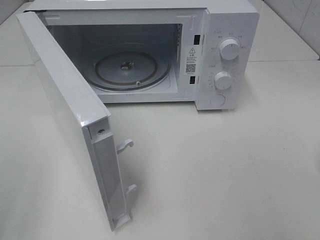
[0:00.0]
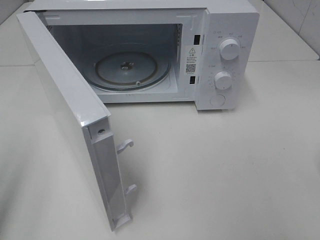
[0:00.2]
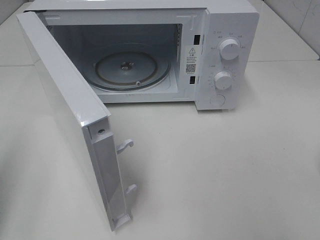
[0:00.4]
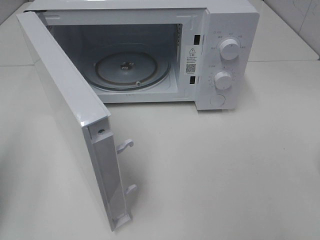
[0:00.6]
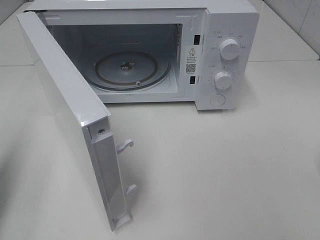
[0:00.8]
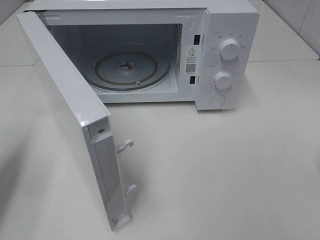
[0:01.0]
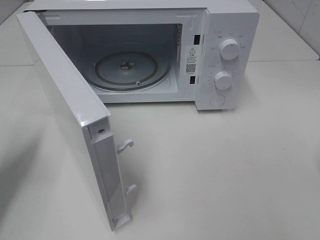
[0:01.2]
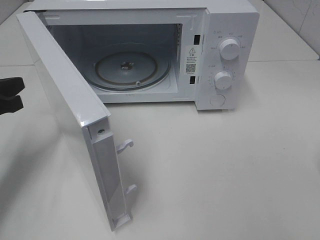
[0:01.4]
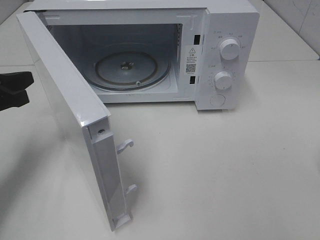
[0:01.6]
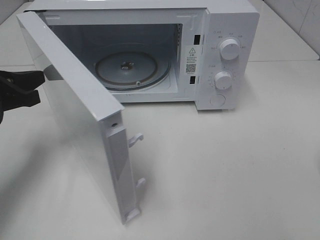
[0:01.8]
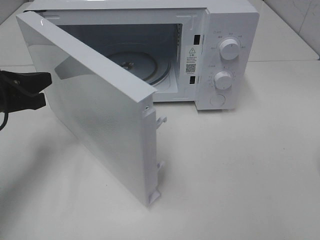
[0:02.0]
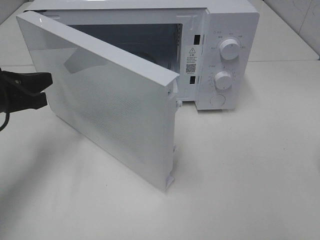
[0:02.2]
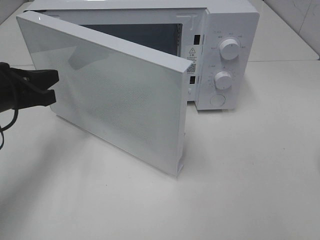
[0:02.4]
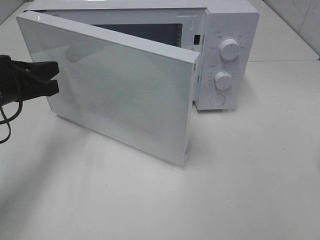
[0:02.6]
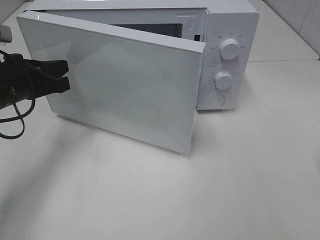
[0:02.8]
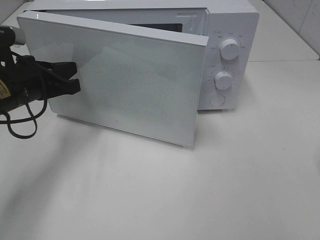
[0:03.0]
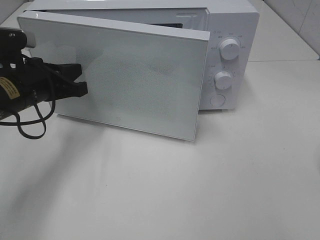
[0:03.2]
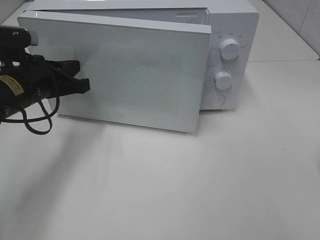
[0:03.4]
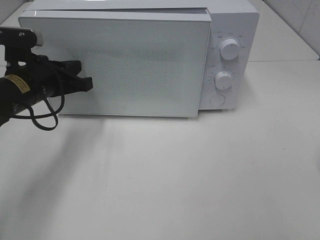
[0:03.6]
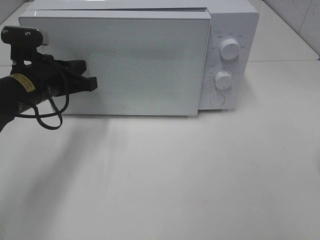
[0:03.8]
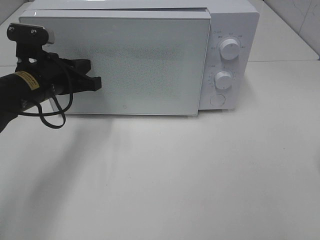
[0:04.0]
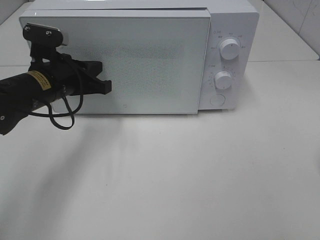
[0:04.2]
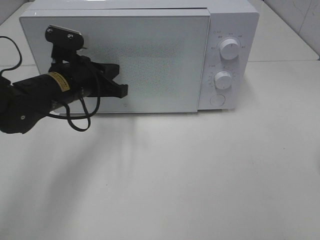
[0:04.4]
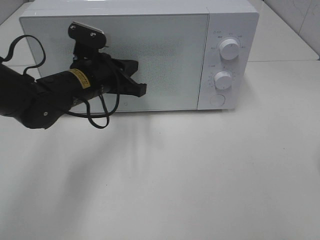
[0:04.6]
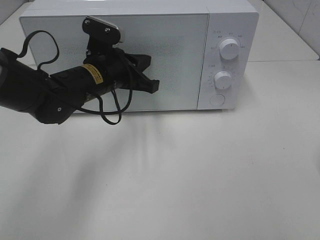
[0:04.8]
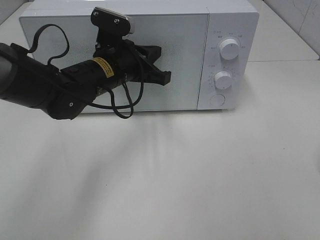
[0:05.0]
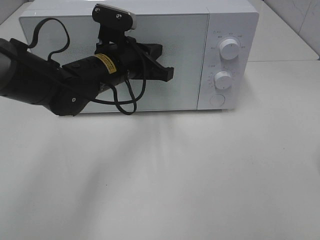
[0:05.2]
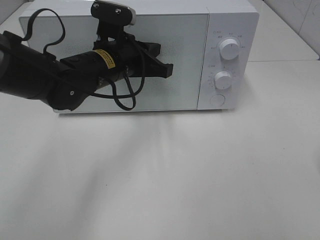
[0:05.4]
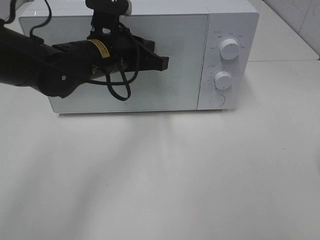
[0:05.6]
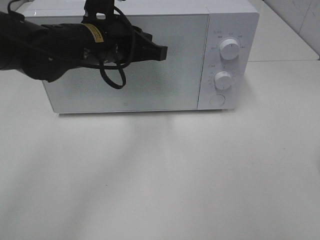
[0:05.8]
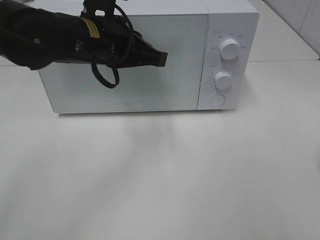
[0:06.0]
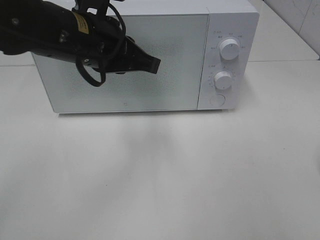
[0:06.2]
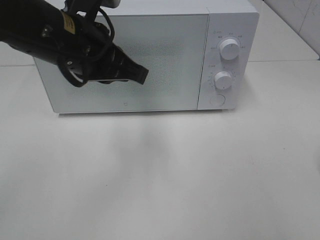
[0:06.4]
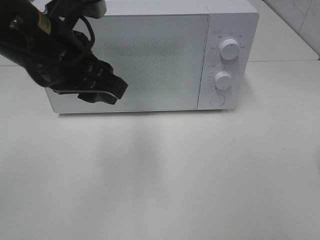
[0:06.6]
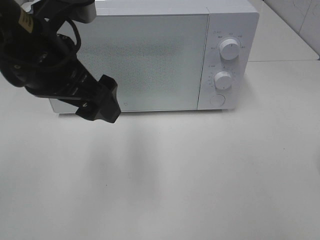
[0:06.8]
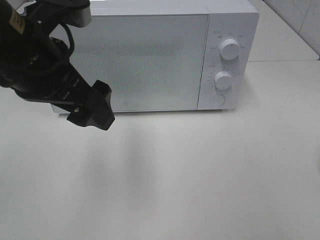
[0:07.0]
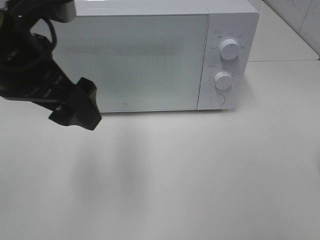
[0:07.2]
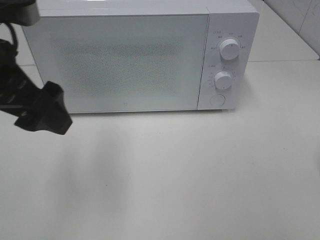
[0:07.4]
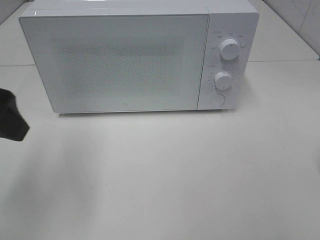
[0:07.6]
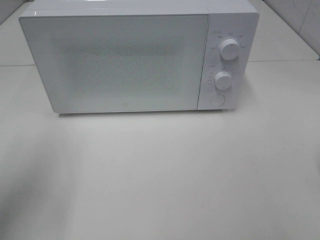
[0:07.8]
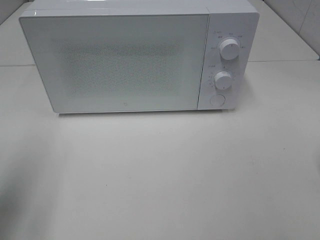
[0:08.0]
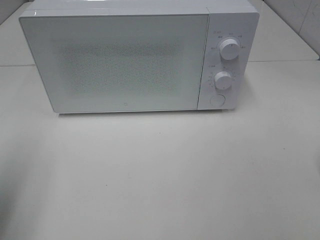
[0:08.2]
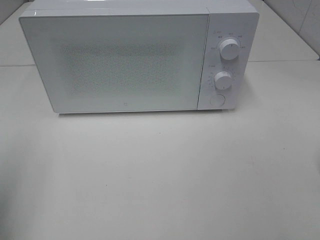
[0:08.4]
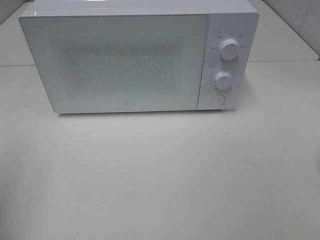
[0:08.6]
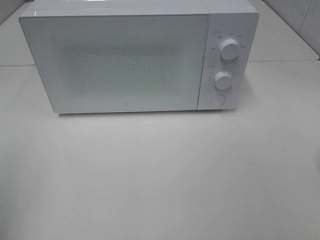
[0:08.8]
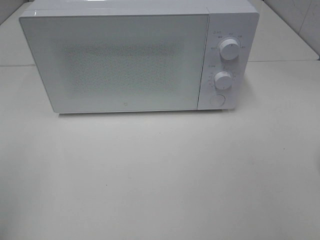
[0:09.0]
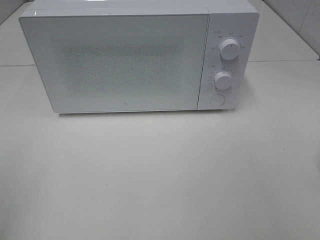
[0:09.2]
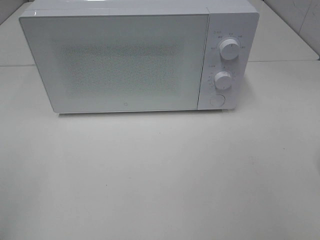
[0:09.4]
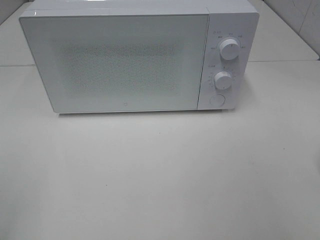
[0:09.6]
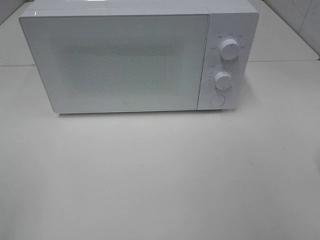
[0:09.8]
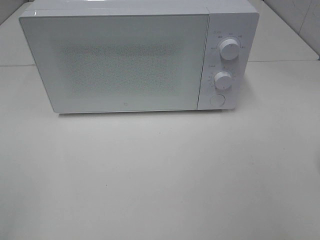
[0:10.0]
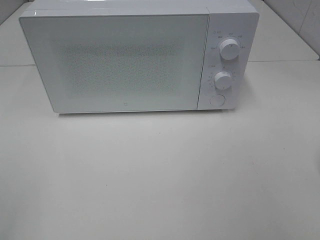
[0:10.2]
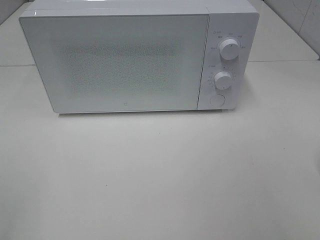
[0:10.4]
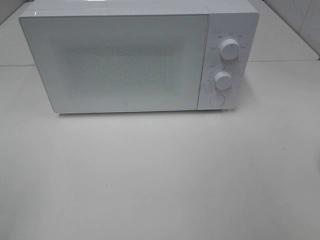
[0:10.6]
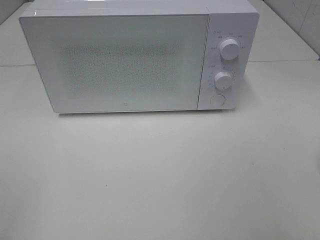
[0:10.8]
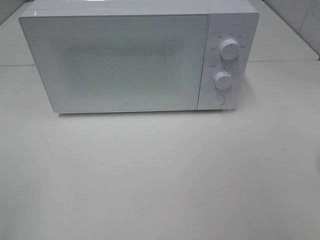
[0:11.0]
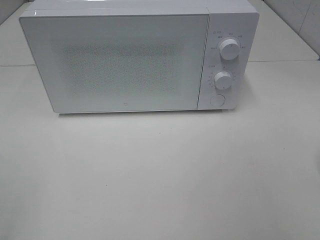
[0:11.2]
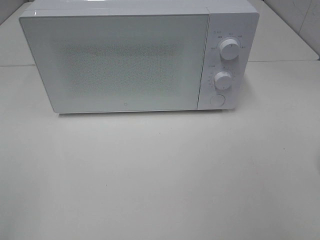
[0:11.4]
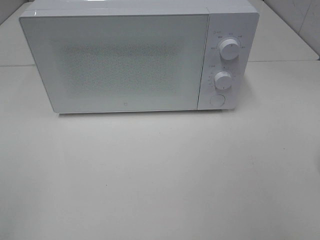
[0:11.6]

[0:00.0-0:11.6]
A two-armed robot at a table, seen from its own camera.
Task of the whole recording: Heat the burger.
Step, 0:00.0 to 0:04.6: Left hand: close the microwave door.
0:00.0 to 0:01.4: The left gripper travels forward and downward by roughly 25 cm, and closes.
0:01.4 to 0:02.8: The left gripper goes about 5 cm to the right.
0:02.8 to 0:04.4: The left gripper goes about 10 cm to the right.
0:04.4 to 0:05.8: The left gripper goes some 10 cm upward and to the right.
0:05.8 to 0:07.2: The left gripper goes about 15 cm backward, to the left and upward, and opens up.
0:07.2 to 0:08.8: The left gripper heads to the left and backward, covering some 25 cm.
0:10.2 to 0:11.6: Both grippers stay about where they are.

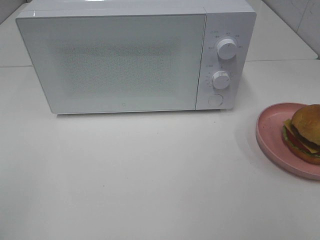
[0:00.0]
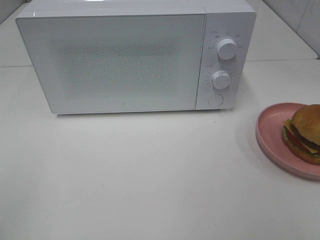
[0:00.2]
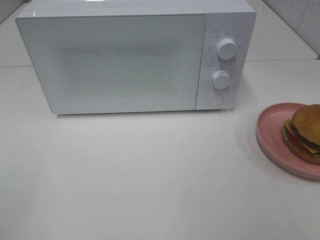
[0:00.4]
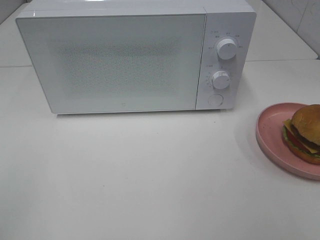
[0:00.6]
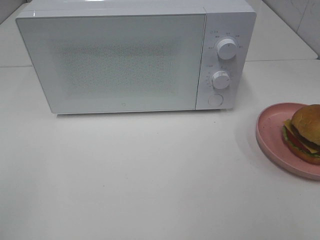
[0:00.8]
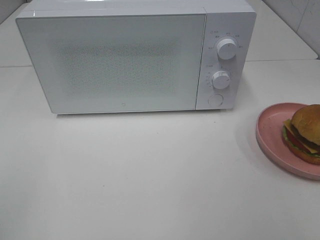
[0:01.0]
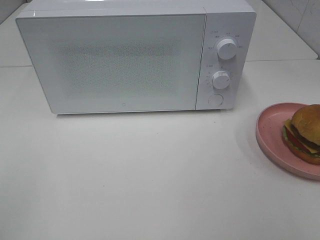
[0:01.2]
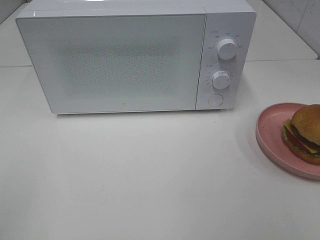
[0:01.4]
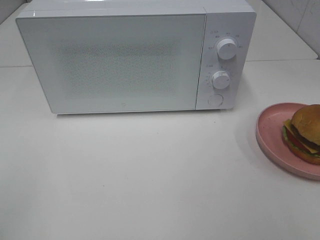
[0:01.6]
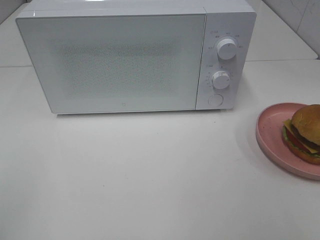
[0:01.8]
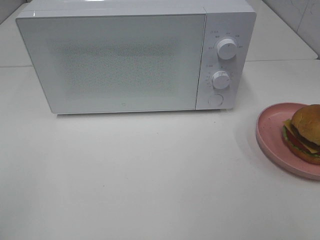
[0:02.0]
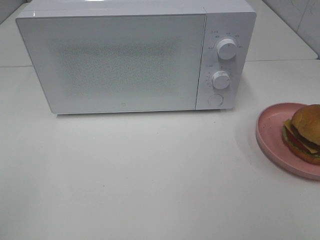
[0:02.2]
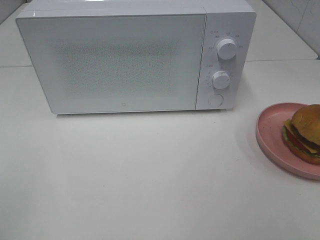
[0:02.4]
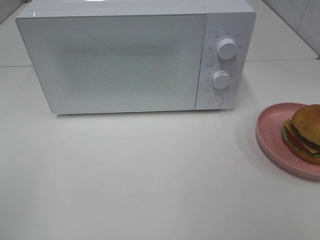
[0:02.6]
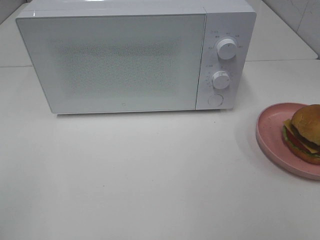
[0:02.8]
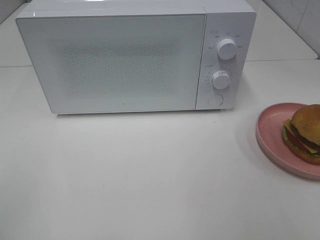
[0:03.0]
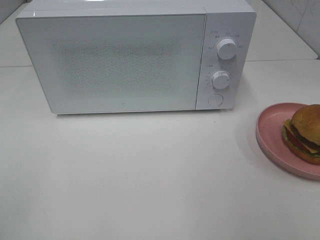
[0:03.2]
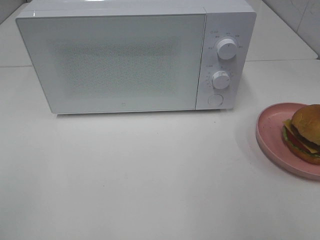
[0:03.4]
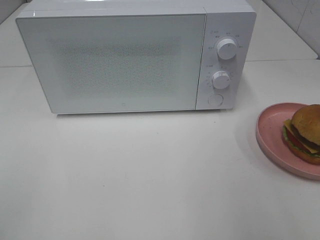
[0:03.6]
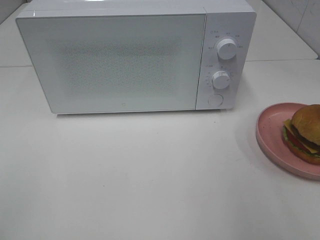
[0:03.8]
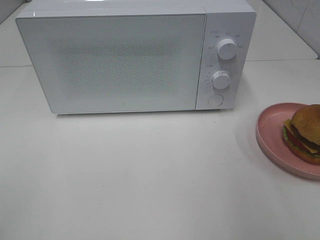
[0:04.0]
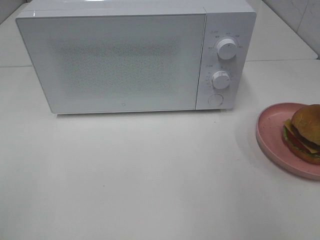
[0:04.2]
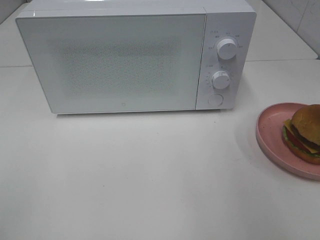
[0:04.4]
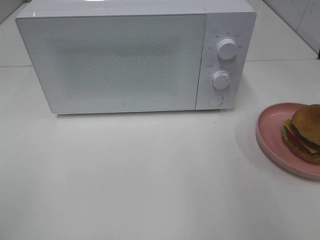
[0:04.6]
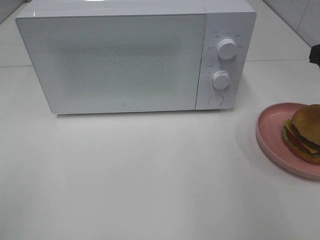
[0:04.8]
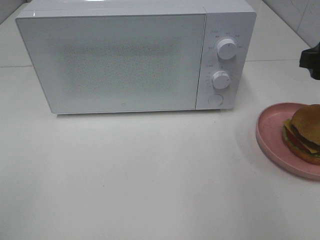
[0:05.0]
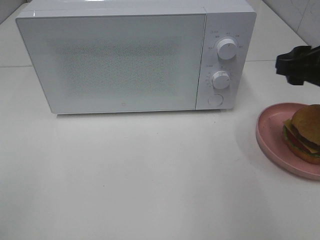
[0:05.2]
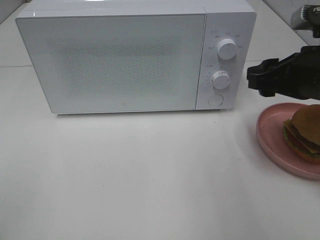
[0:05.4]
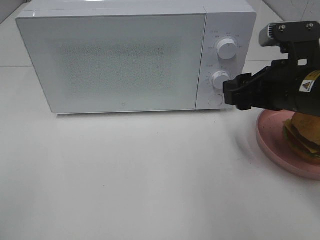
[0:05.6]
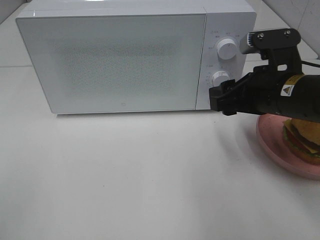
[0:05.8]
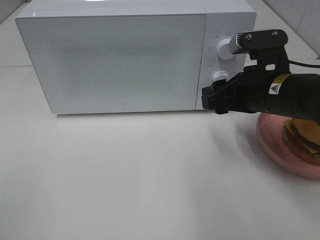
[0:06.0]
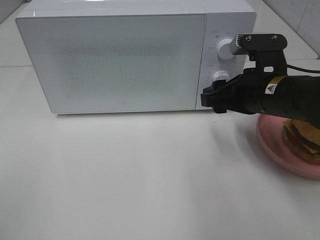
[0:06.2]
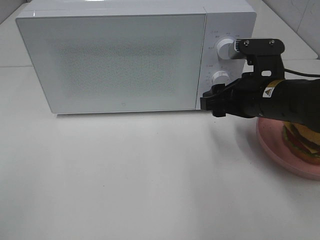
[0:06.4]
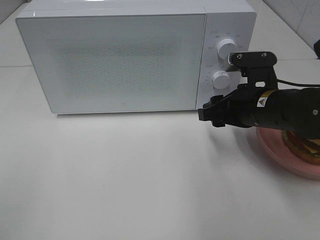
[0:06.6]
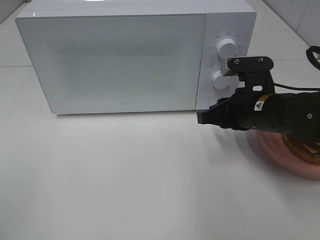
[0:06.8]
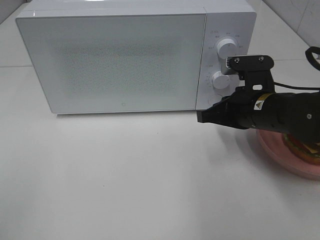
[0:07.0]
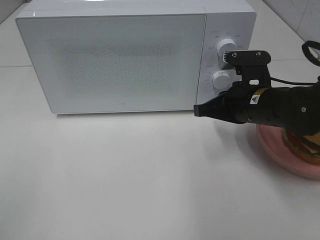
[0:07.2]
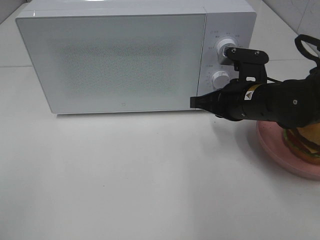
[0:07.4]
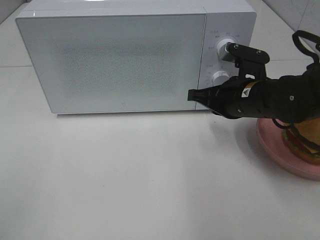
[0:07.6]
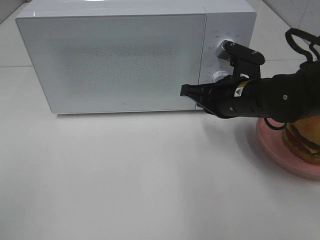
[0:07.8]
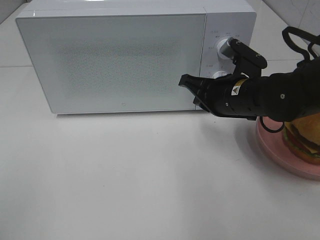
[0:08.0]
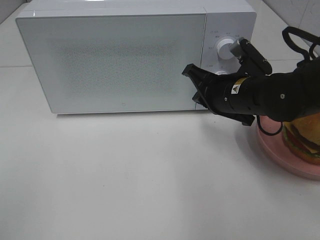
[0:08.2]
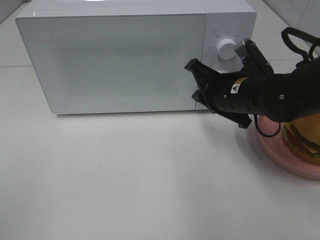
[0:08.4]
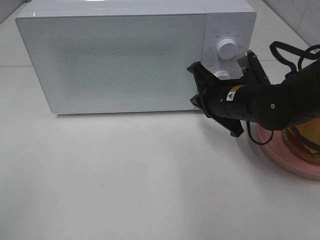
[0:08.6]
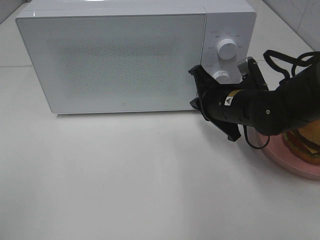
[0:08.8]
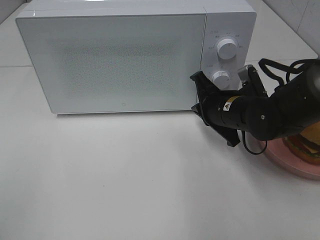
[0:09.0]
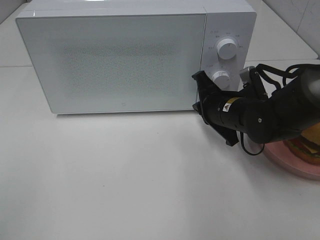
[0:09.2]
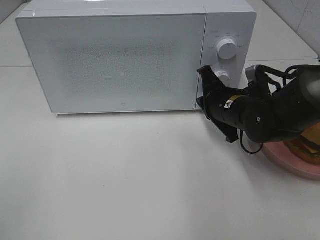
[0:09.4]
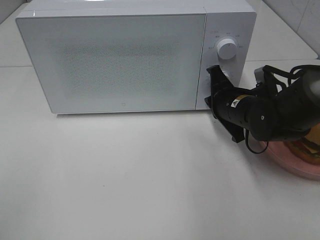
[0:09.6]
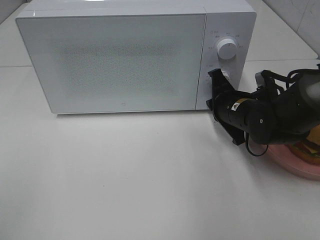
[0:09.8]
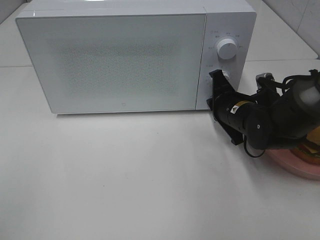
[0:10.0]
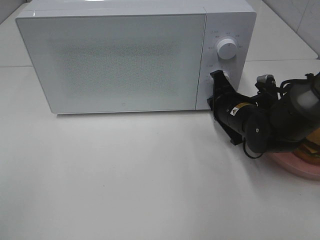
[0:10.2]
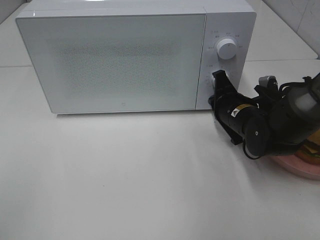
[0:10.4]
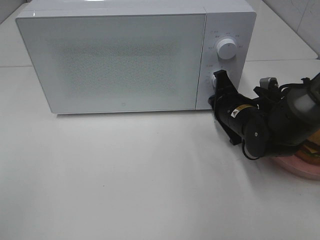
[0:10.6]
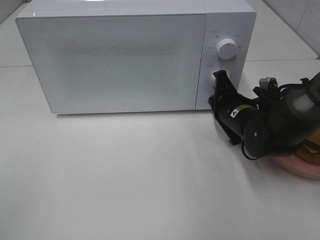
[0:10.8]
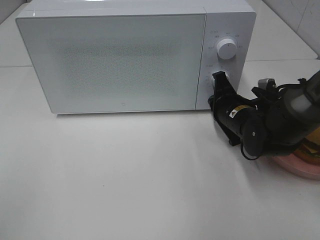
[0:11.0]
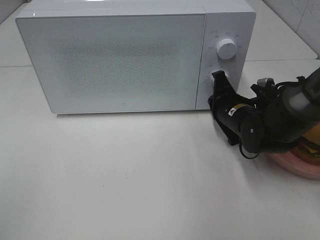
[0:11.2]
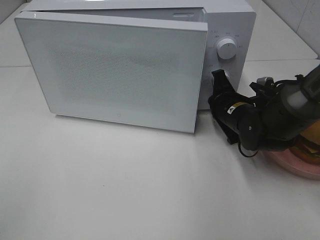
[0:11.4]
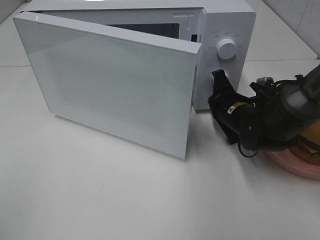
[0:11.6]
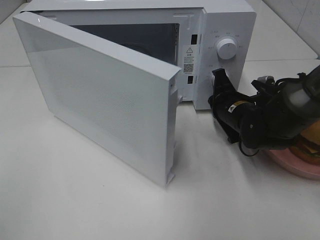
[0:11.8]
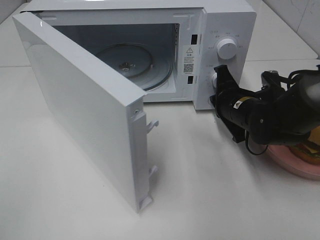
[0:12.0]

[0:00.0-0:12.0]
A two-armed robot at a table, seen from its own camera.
Task of the whole recording: Heat the burger.
0:00.0 to 0:01.6: Both grippers stay put.
0:04.4 to 0:06.0: The right gripper goes about 15 cm to the left, downward and forward.
0:06.0 to 0:07.6: The right gripper shifts by approximately 5 cm, and closes up.
0:09.0 to 0:10.4: The grippers move only a little.
